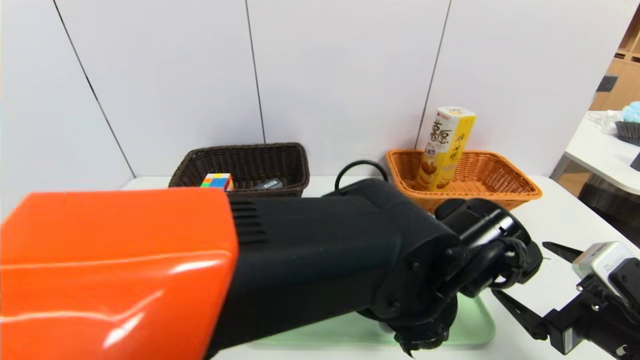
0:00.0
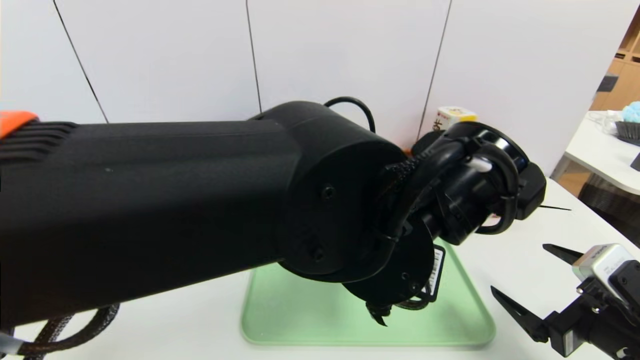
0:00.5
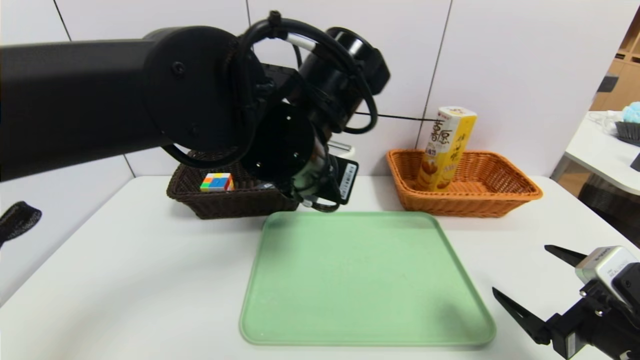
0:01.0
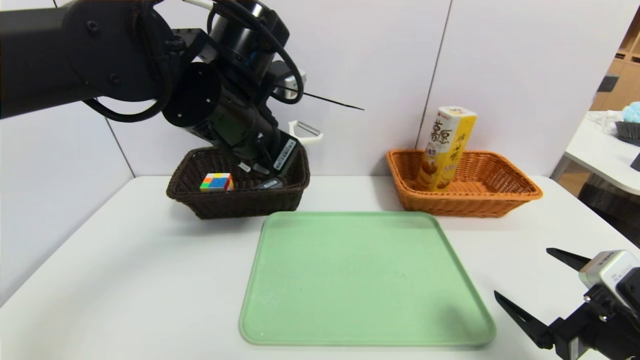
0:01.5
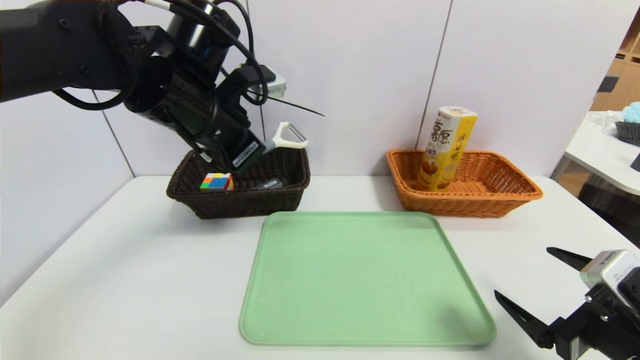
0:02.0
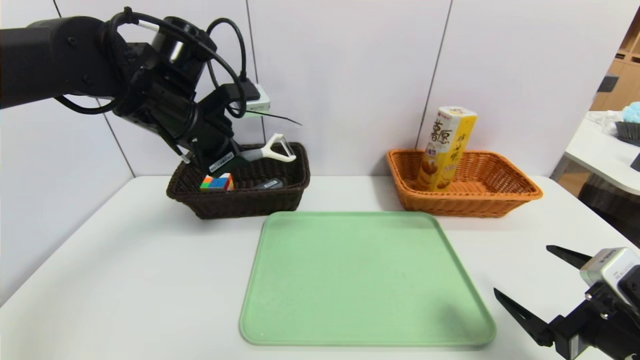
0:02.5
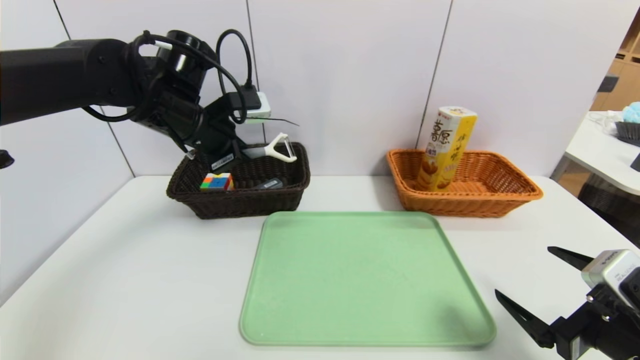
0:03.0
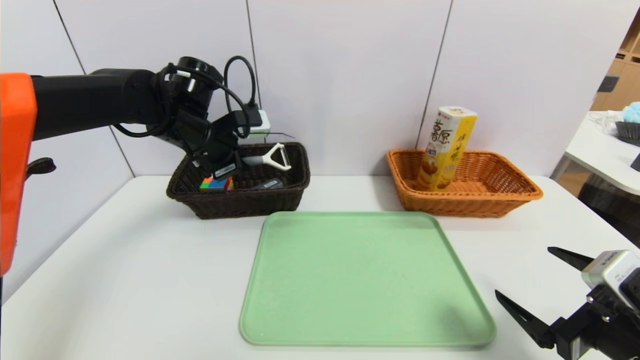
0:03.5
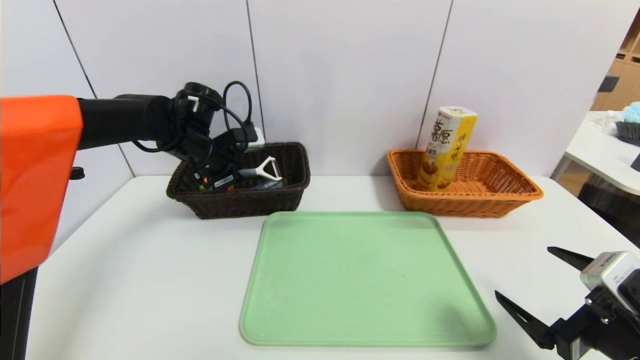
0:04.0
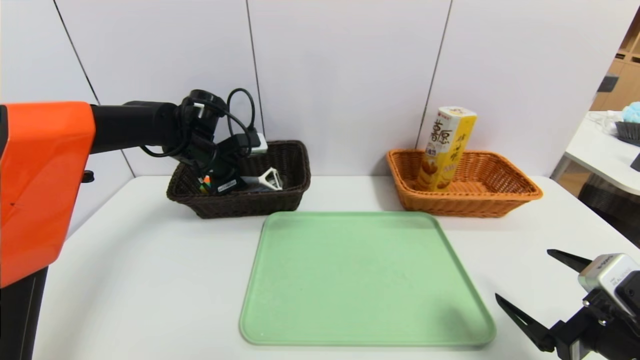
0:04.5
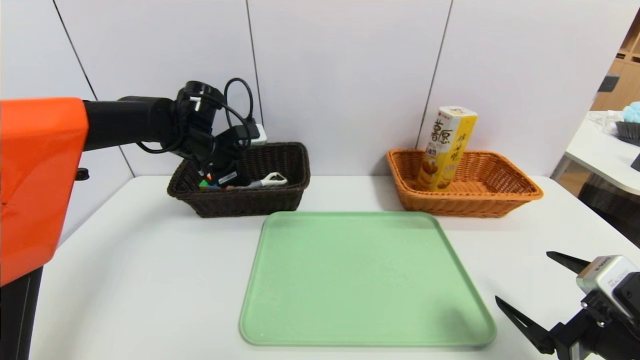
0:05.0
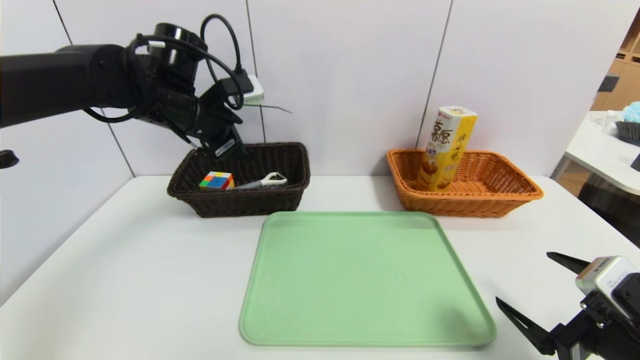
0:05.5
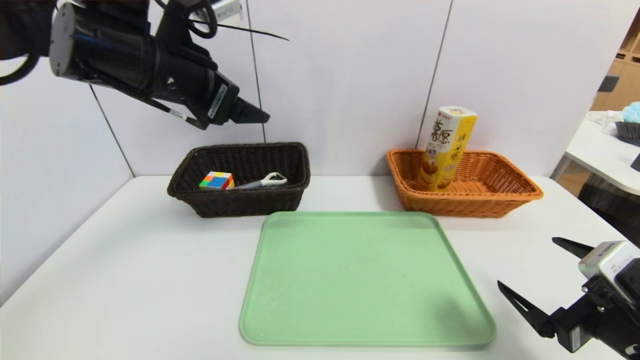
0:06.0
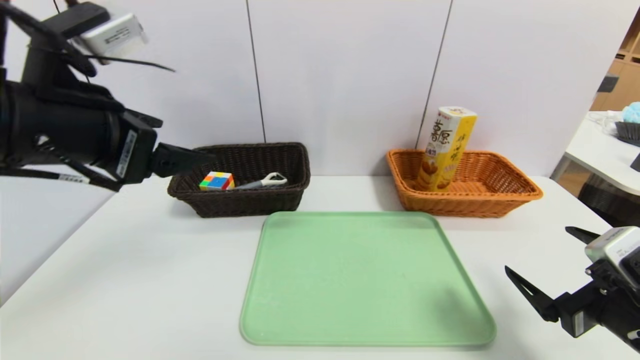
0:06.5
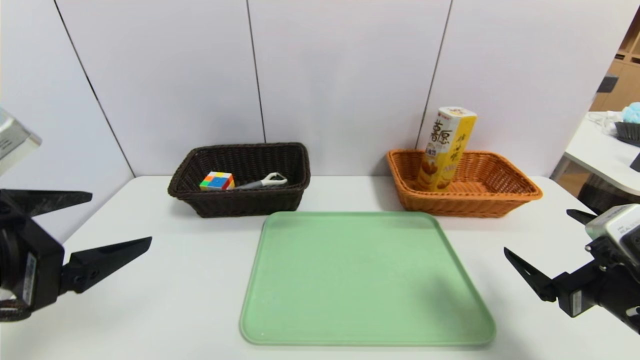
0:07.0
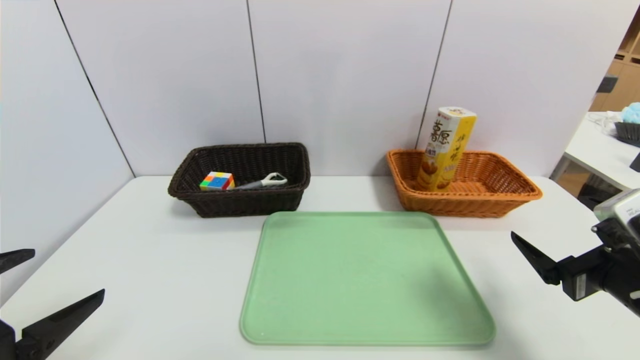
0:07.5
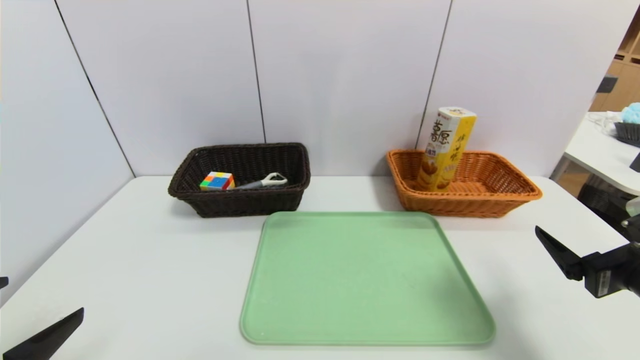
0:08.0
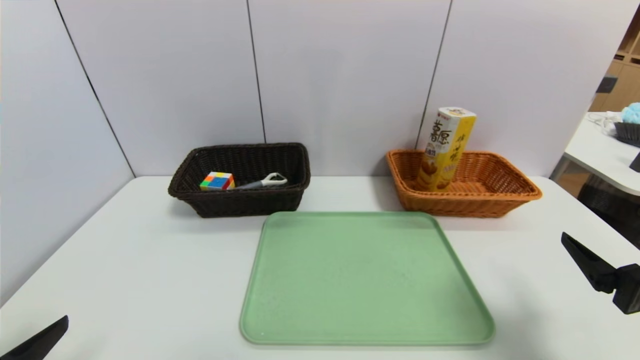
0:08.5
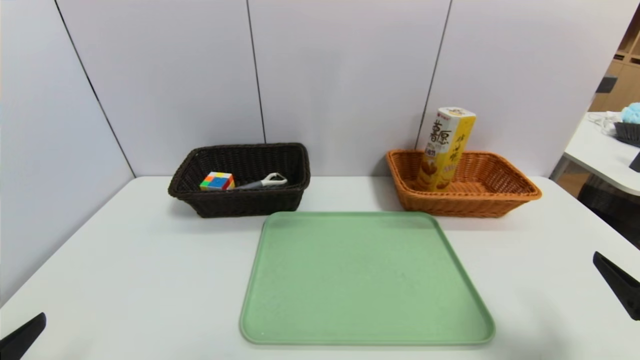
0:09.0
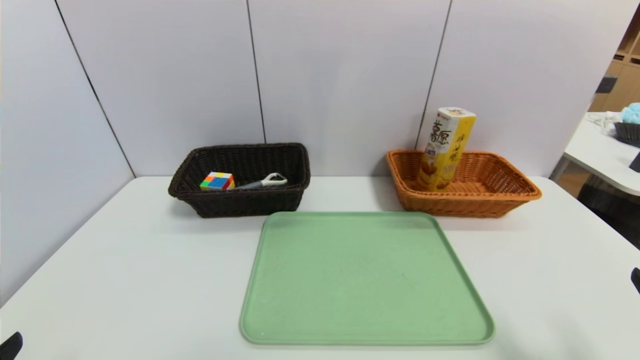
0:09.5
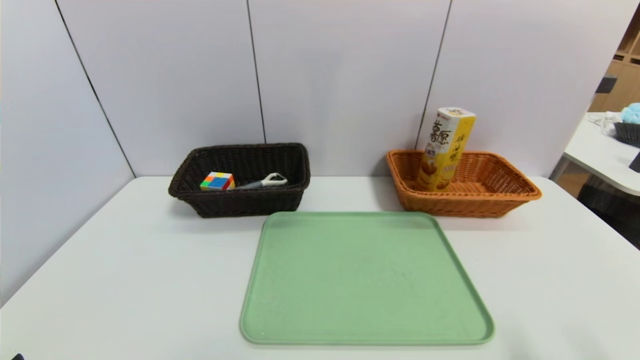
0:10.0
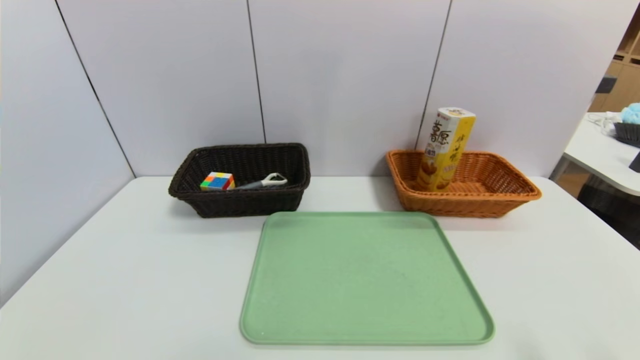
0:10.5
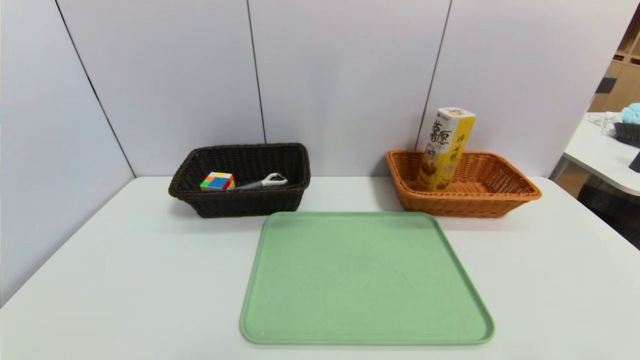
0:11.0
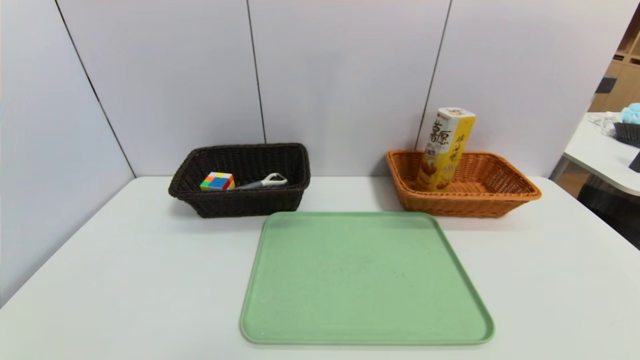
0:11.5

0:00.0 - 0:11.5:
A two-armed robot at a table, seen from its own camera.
Task of the whole recording: place the food in the right basket with the right gripper, and place the non food items in the left basket with the left gripper.
Step, 0:00.0 - 0:04.5: Grasp the peeler and put it in the left basket.
0:00.0 - 0:02.0: The left gripper is displaced to the left, forward and upward by some 30 cm.
0:02.0 - 0:04.0: The left gripper is displaced forward, downward and to the left by some 15 cm.
0:04.0 - 0:06.0: The left gripper goes approximately 20 cm upward and backward, and opens its fingers.
0:06.0 - 0:07.5: The left gripper goes some 30 cm backward, downward and to the left.
0:07.5 - 0:09.5: Both grippers move backward, about 10 cm.

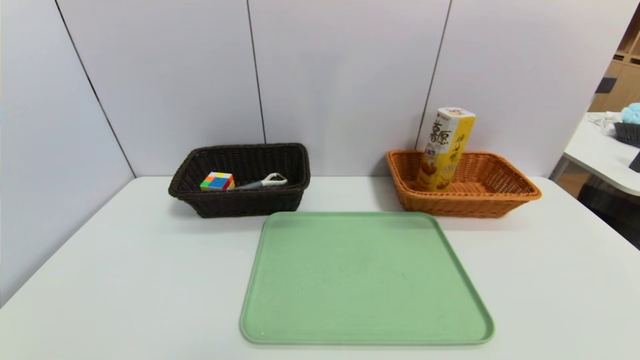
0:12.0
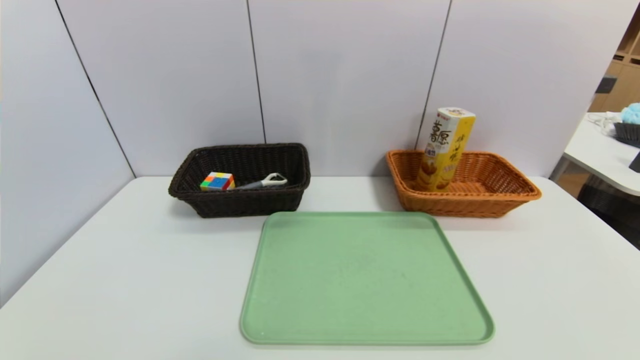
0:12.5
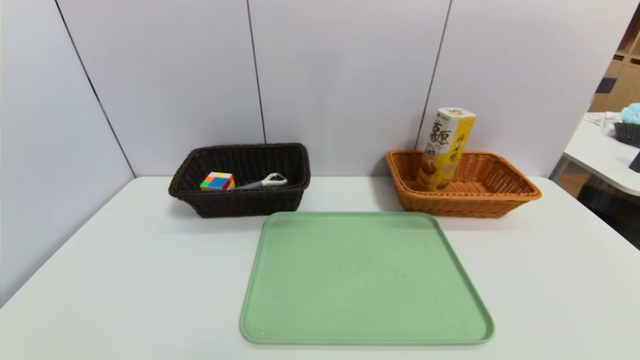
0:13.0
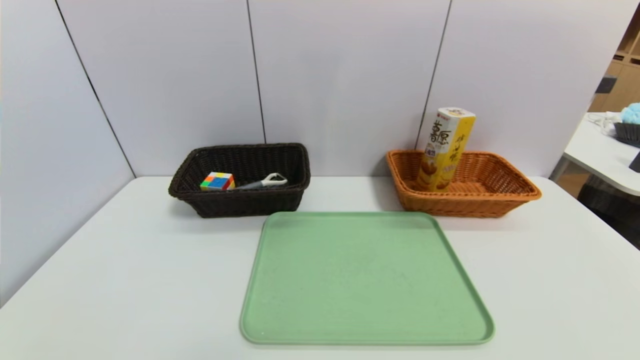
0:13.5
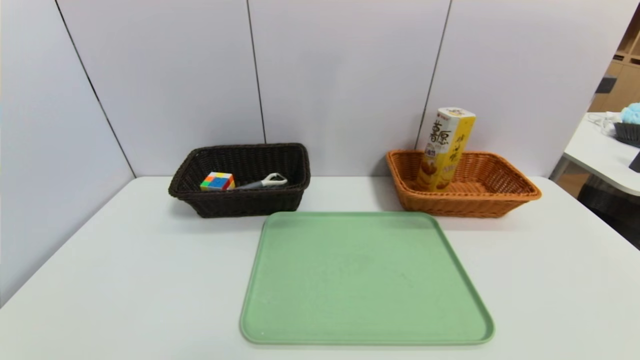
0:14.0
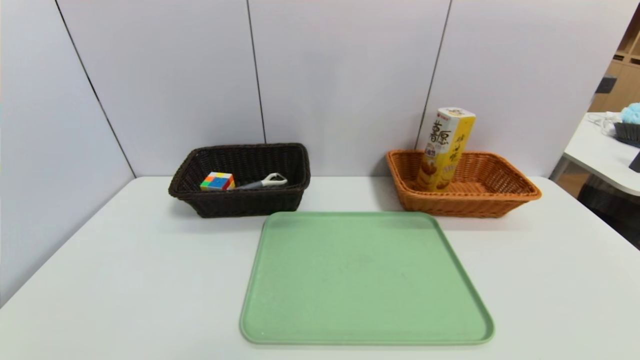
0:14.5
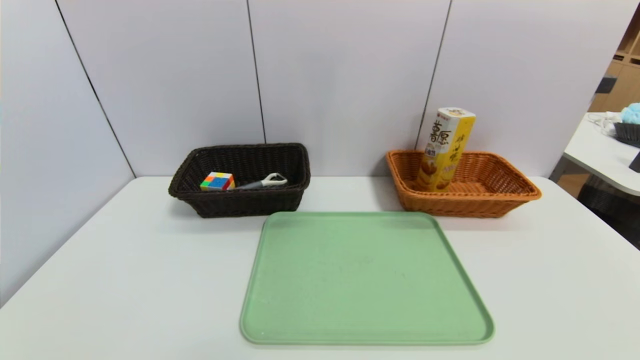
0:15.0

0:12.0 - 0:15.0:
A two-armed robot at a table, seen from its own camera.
Task of the whole recording: place the food in the right basket with the right gripper, and place the non food items in the left basket with the left gripper.
0:13.5 - 0:15.0: Both grippers stay about where they are.

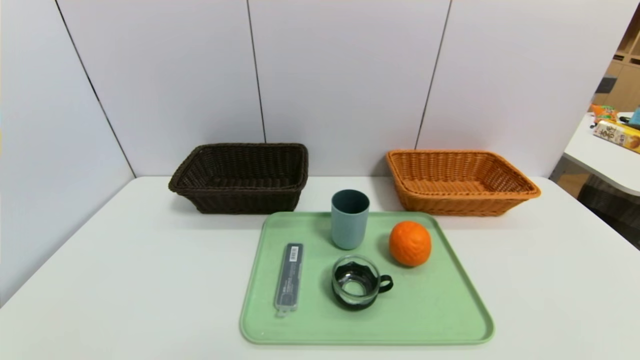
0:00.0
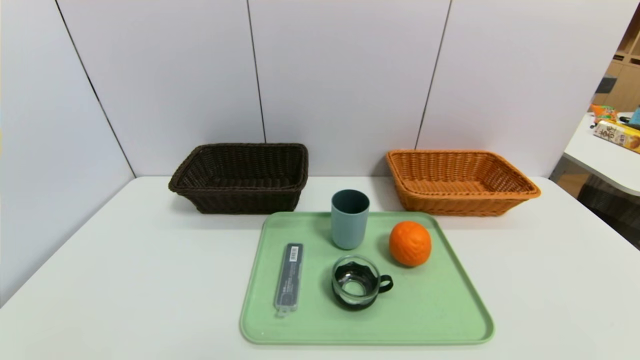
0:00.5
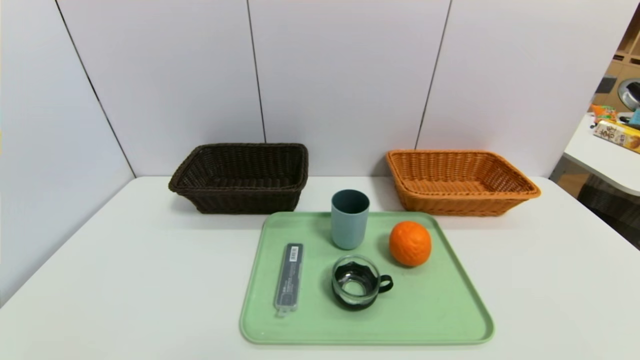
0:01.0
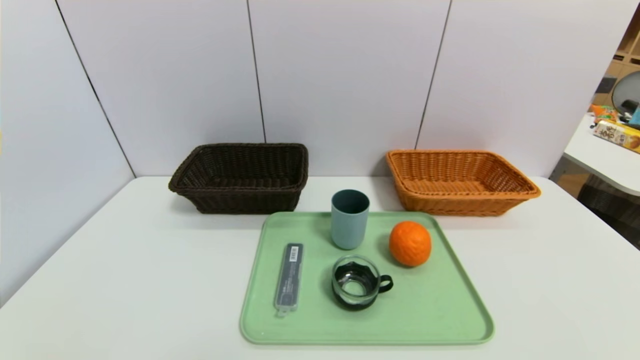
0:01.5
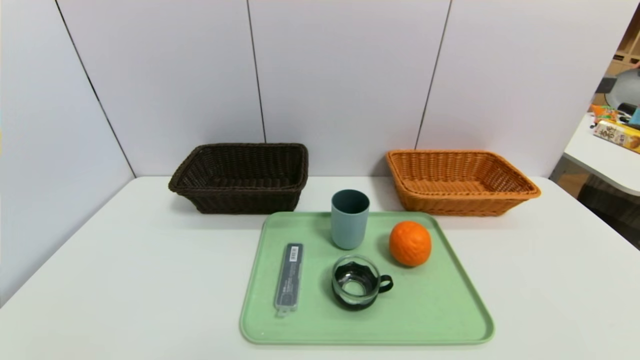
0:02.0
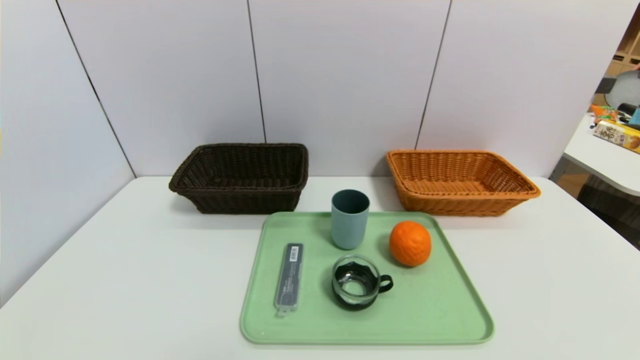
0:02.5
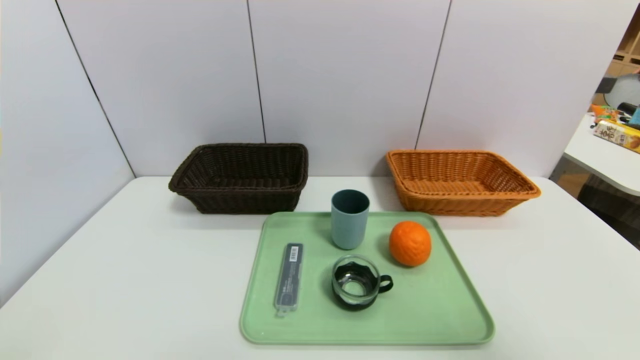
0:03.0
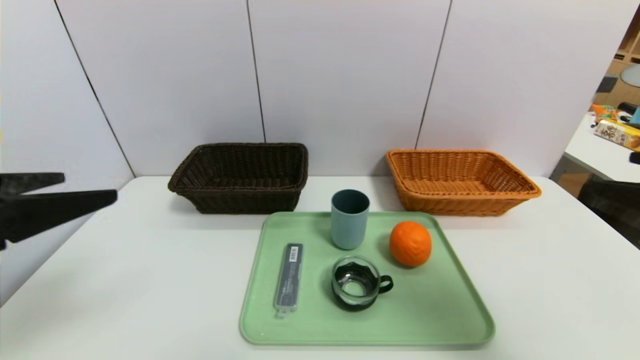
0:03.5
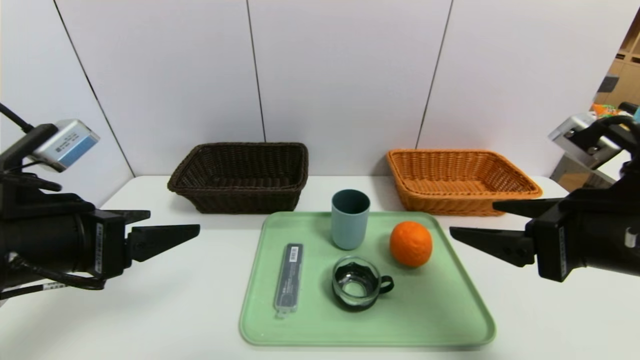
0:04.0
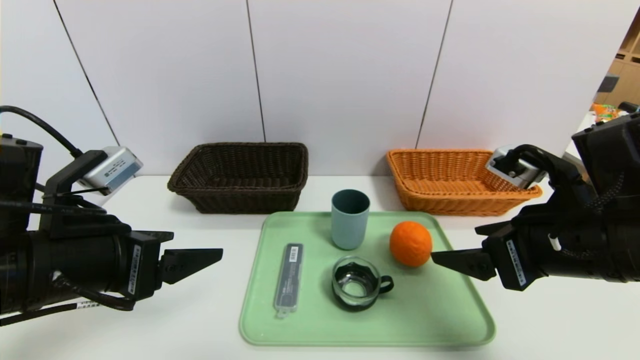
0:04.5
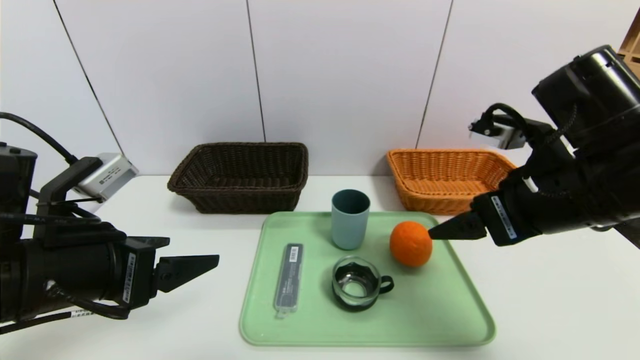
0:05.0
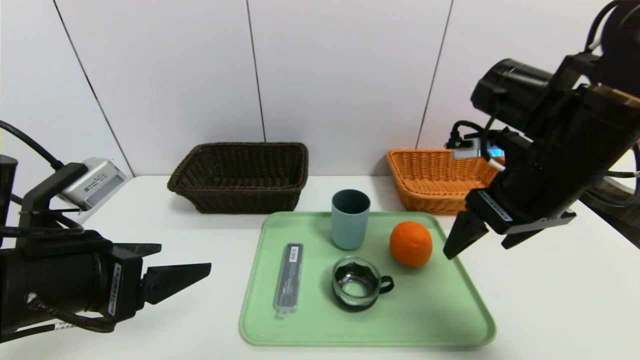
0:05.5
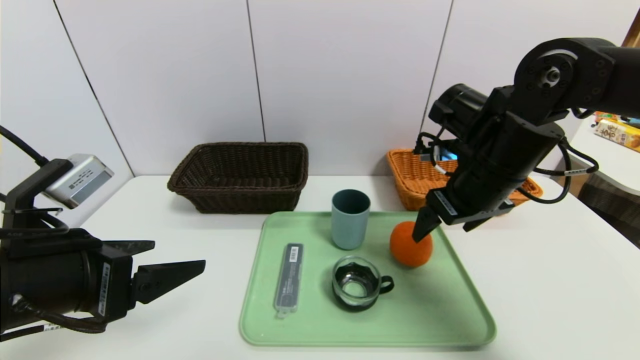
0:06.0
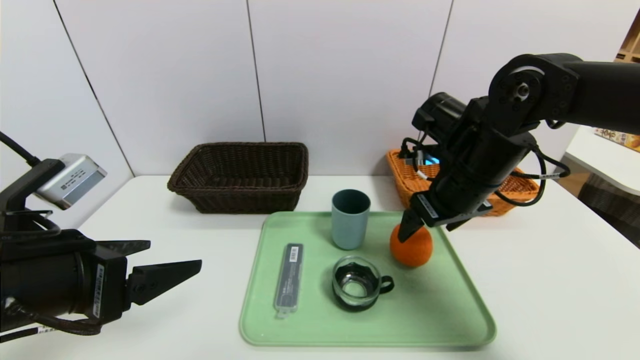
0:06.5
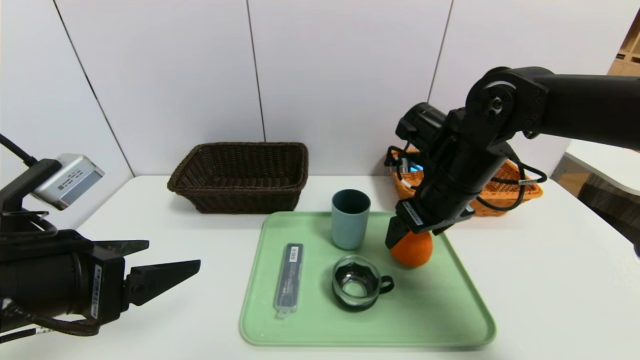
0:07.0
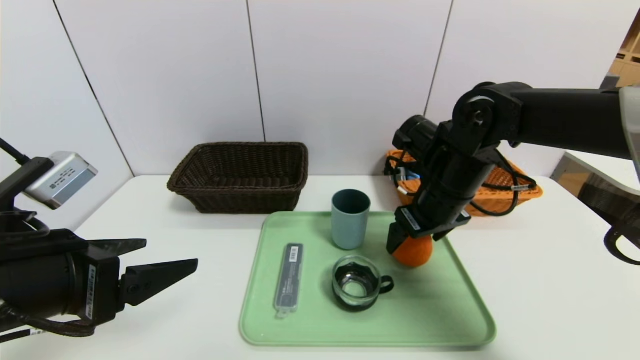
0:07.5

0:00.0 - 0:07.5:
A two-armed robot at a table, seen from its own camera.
Task of the whole recording: place the food in the right basket with the right gripper, and place the non food items in the left basket with the left gripper.
0:00.0 - 0:02.0: The two grippers keep their place.
0:02.0 - 0:04.0: The left gripper travels forward and upward by about 25 cm; the right gripper moves forward, upward and to the left, some 25 cm.
0:04.0 - 0:05.5: The right gripper is displaced forward by about 10 cm.
0:05.5 - 0:07.5: The right gripper travels downward and forward by roughly 10 cm.
